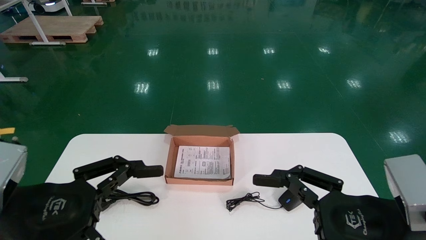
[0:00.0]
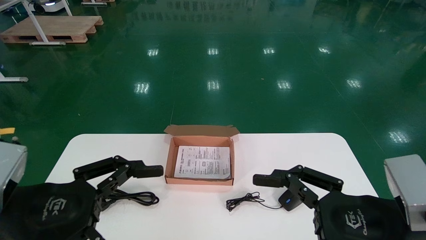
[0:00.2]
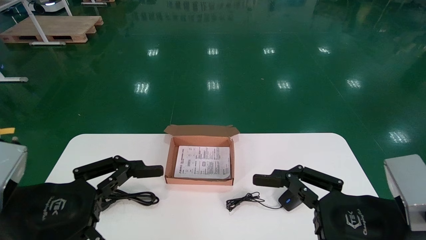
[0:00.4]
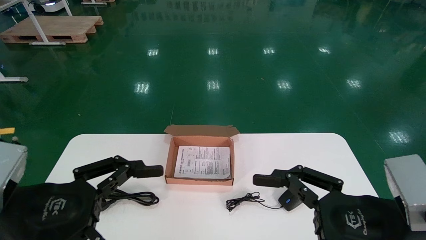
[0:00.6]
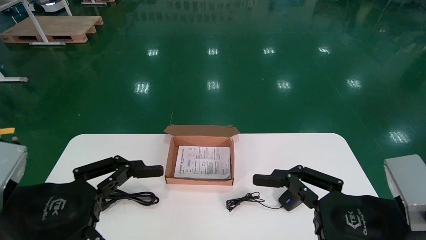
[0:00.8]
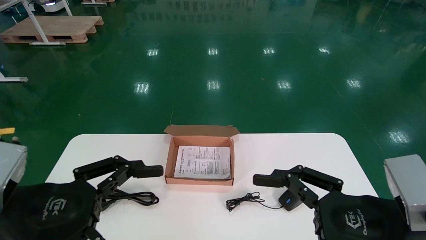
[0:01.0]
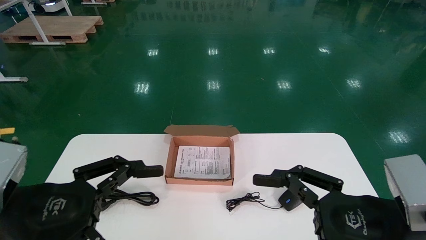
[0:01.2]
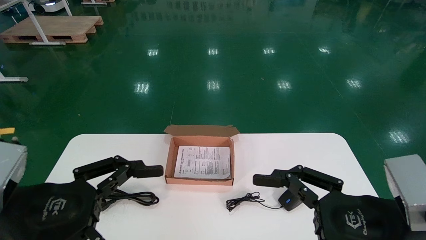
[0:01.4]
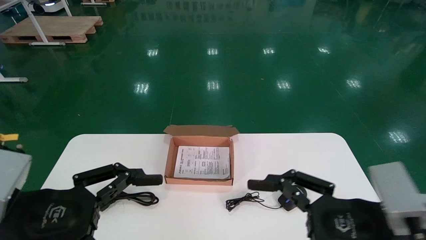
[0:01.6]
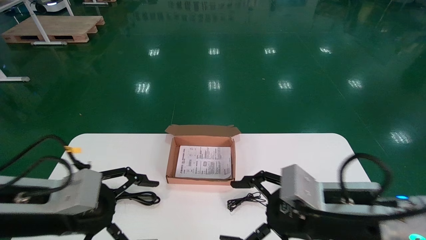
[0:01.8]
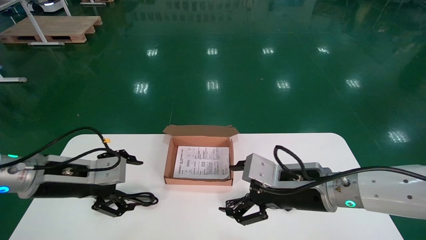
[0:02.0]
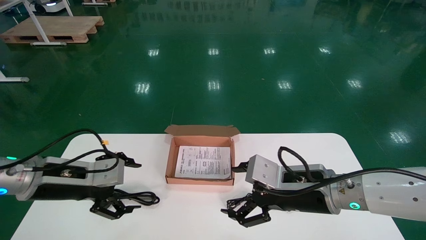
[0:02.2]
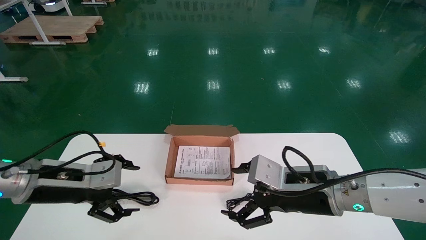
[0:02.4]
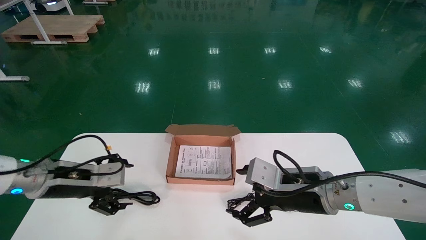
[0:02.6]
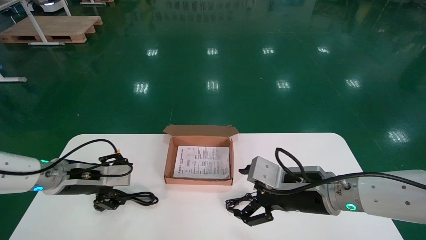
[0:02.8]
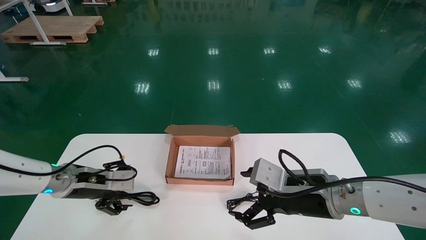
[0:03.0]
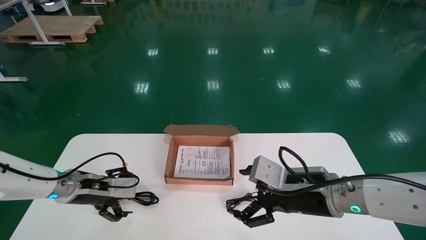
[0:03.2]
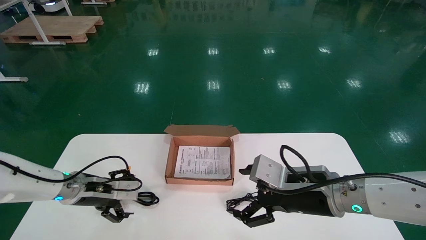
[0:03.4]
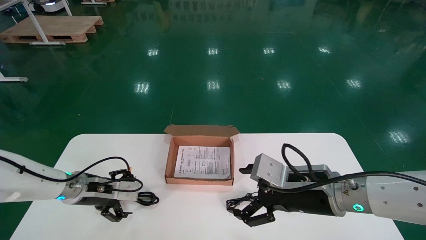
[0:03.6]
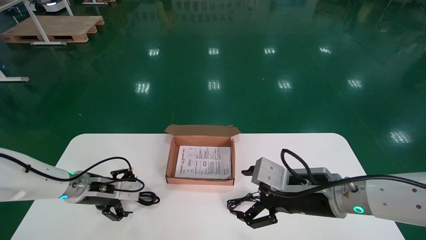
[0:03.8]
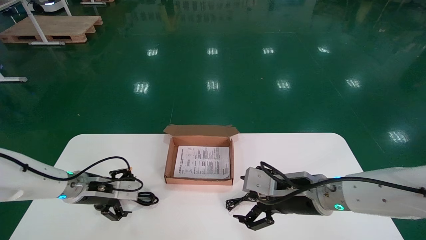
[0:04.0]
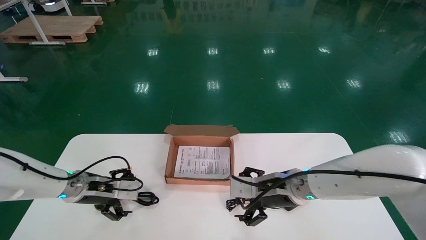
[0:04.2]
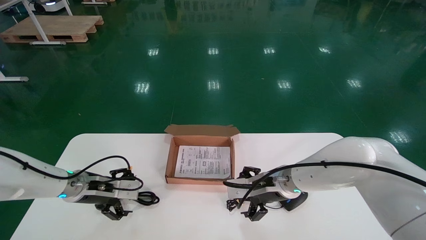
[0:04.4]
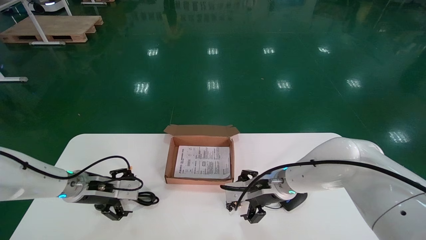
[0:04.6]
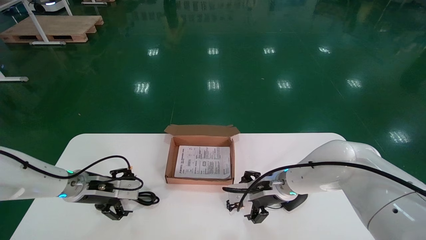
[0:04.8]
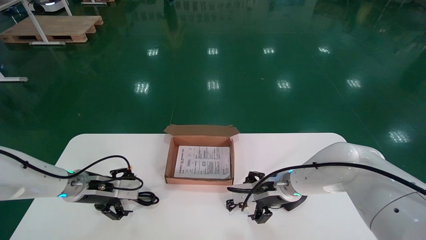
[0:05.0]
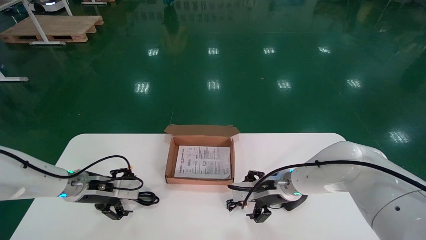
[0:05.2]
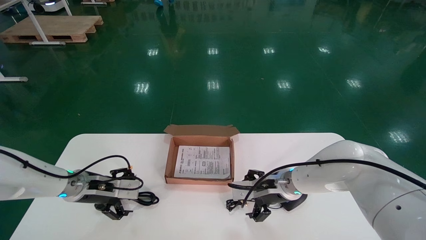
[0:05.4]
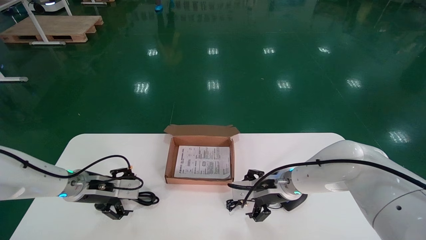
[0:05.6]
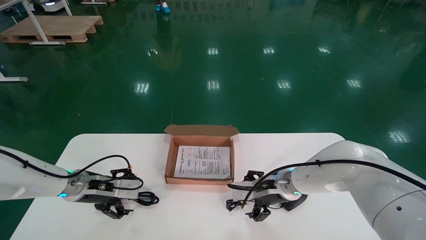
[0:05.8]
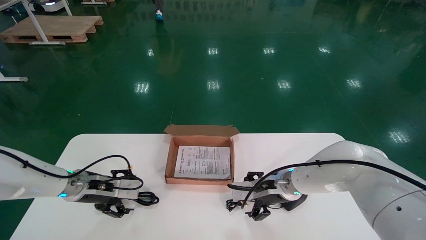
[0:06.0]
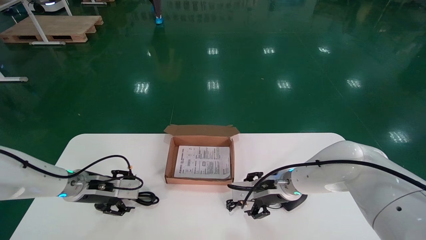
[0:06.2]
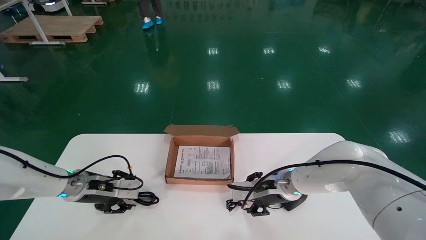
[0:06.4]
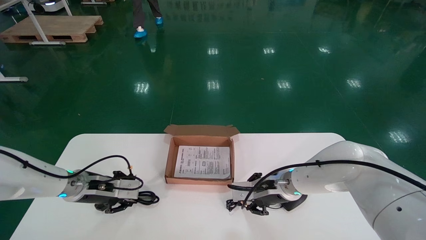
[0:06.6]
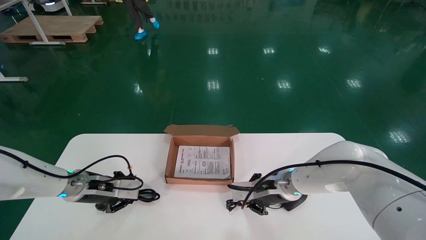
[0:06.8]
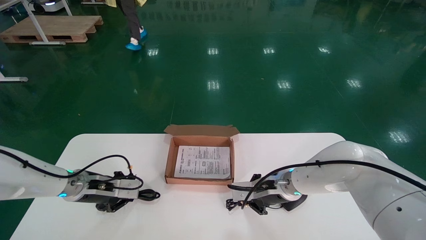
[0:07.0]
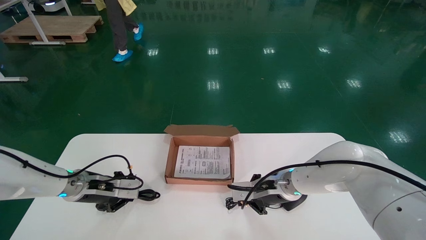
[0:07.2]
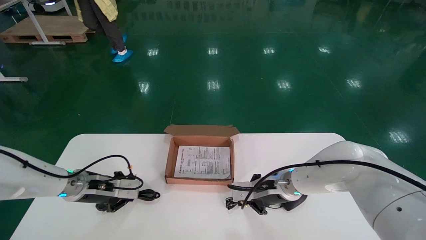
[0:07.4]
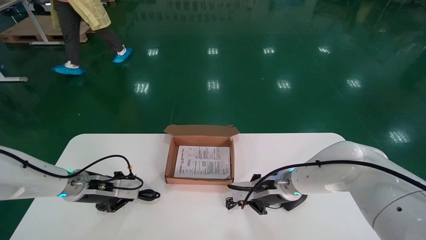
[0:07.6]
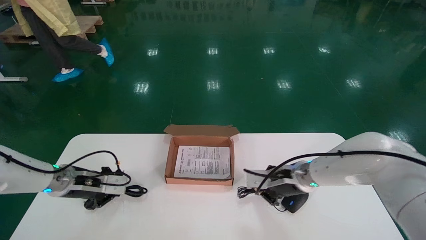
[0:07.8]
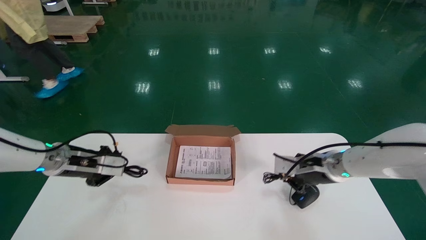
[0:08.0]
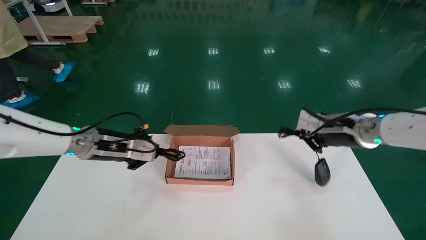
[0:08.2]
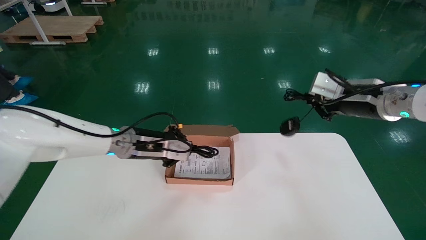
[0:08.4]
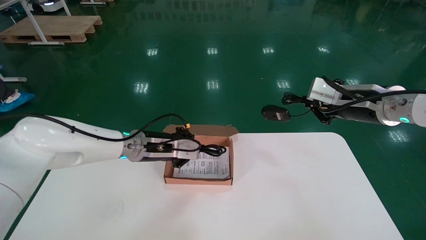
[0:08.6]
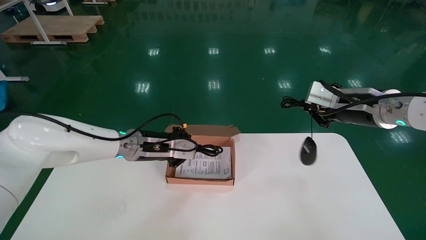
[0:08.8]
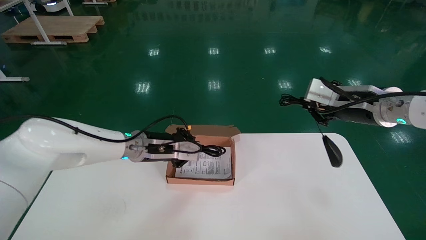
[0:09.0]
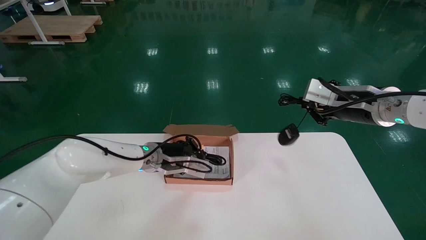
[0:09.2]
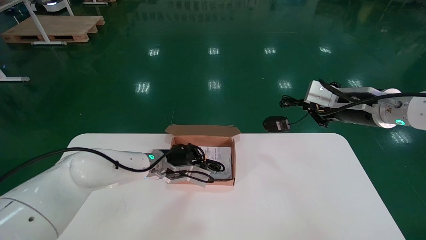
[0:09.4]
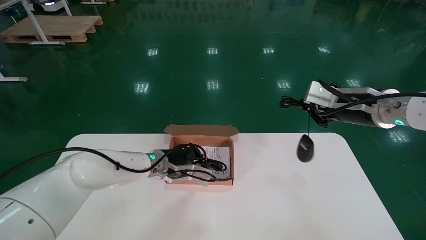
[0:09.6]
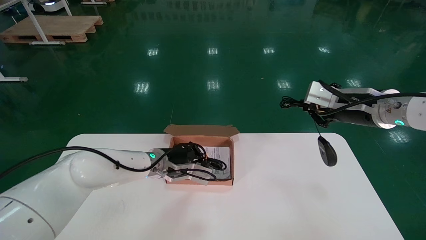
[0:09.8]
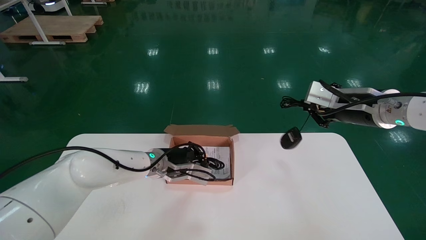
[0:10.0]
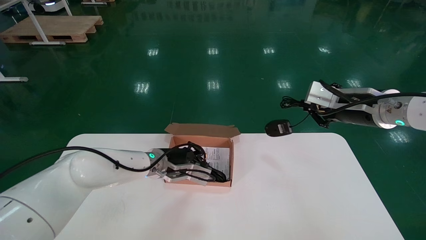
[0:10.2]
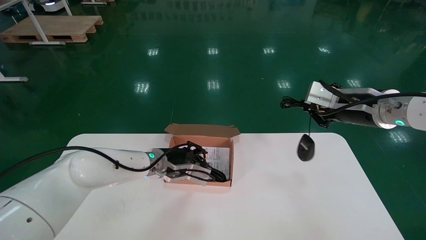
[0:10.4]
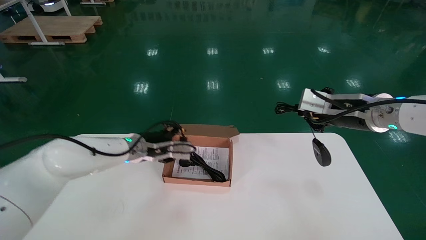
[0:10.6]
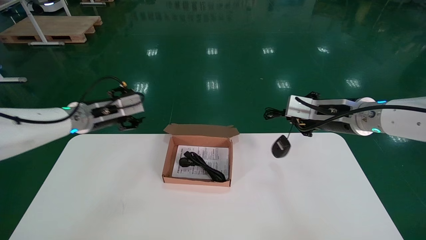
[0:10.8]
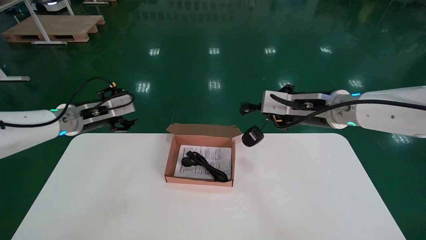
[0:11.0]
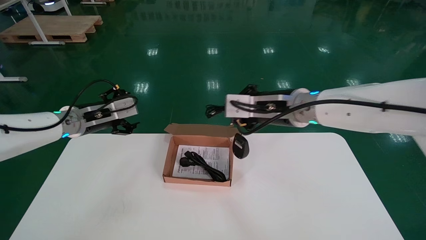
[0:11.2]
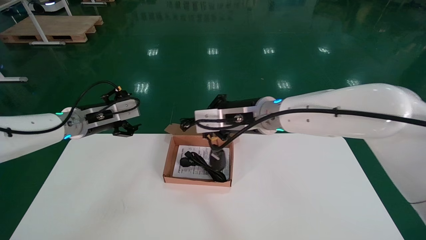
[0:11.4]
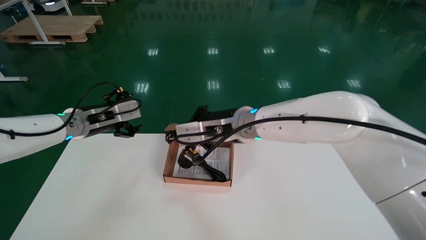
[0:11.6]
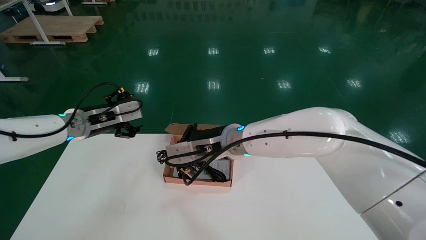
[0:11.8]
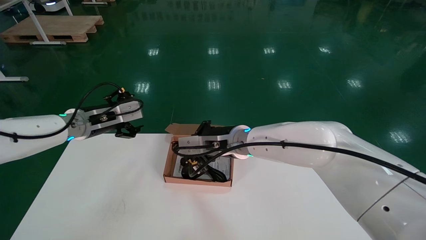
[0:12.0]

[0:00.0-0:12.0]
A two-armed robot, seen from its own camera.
Step, 0:01.8 to 0:07.0: Simultaneously pick up the mouse and power cord from the accessory packaging area.
0:00.0 to 0:01.6: The grippers stay close to where they were, moving slightly.
0:01.6 to 0:03.0: The right gripper goes roughly 10 cm forward; the left gripper heads forward, covering roughly 20 cm.
0:03.0 to 0:04.4: The right gripper is displaced forward by approximately 10 cm.
0:04.4 to 0:06.0: The grippers make only small movements.
0:06.0 to 0:07.6: The left gripper closes up; the right gripper closes up.
0:07.6 to 0:09.0: The right gripper travels upward and to the right by approximately 25 cm. Meanwhile the left gripper travels to the right and upward by roughly 20 cm.
0:09.0 to 0:10.4: The grippers move only a little.
0:10.4 to 0:12.0: The left gripper moves to the left and upward, approximately 15 cm, and opens up; the right gripper shifts some 25 cm to the left.

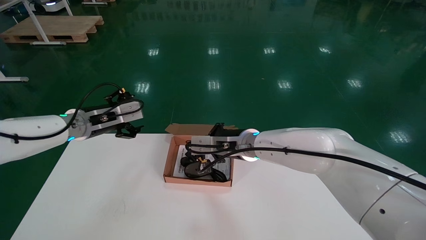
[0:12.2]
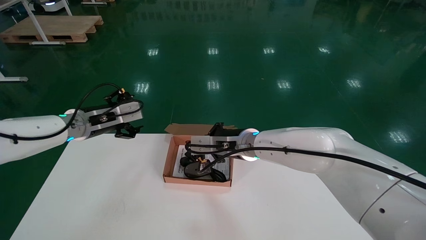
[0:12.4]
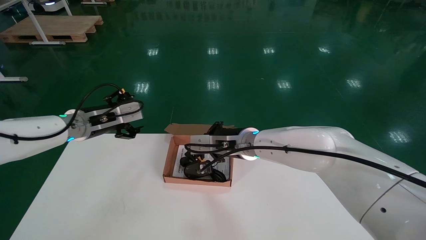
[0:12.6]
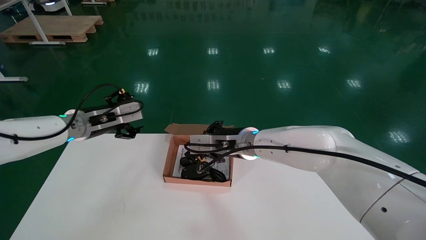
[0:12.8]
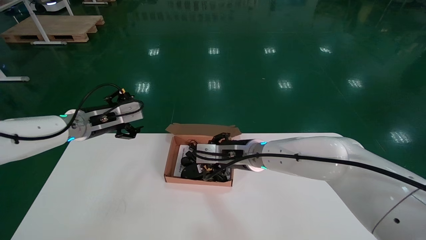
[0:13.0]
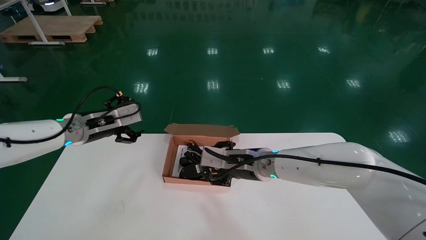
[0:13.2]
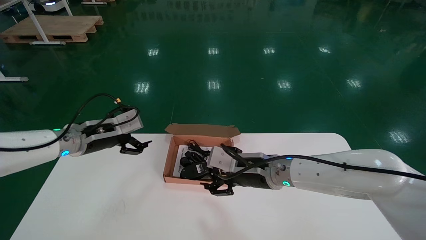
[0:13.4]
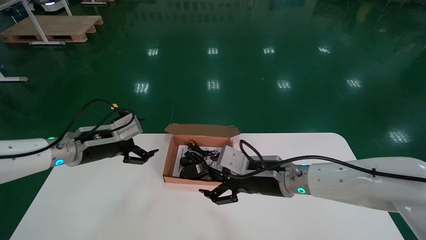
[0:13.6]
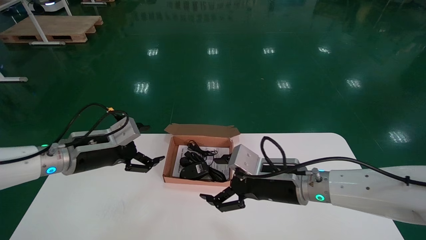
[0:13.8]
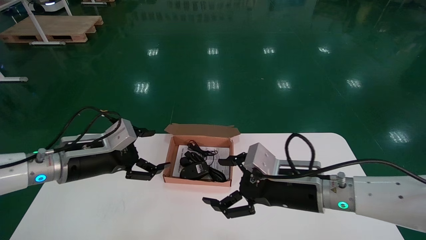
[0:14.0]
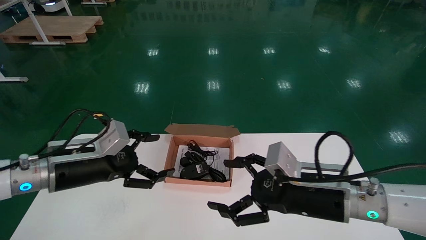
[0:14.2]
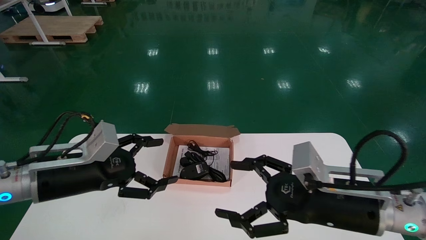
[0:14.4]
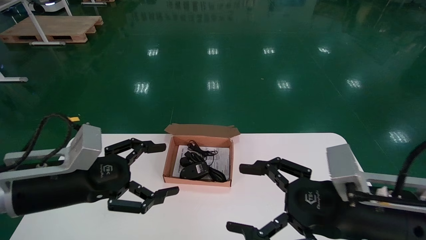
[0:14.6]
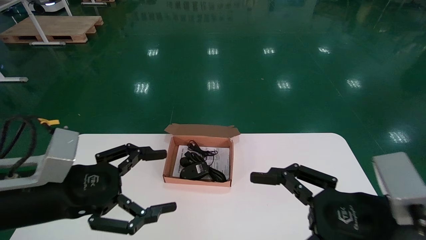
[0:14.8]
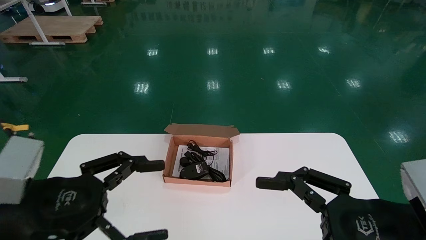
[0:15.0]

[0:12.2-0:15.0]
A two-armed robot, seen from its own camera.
0:12.2 to 0:13.6: The right gripper is displaced to the right, backward and downward by roughly 10 cm, and opens up, while the left gripper shifts by roughly 5 cm.
0:13.6 to 0:15.0: The right gripper goes some 25 cm backward and to the right; the left gripper goes approximately 20 cm backward.
